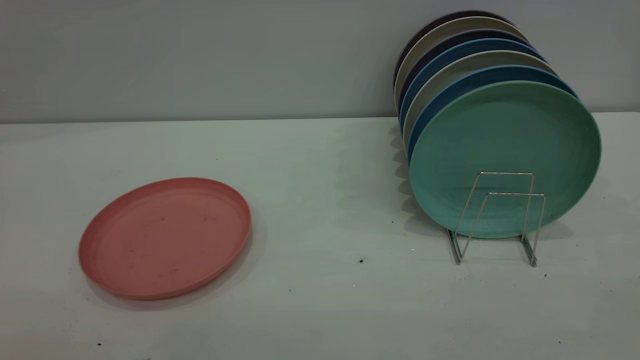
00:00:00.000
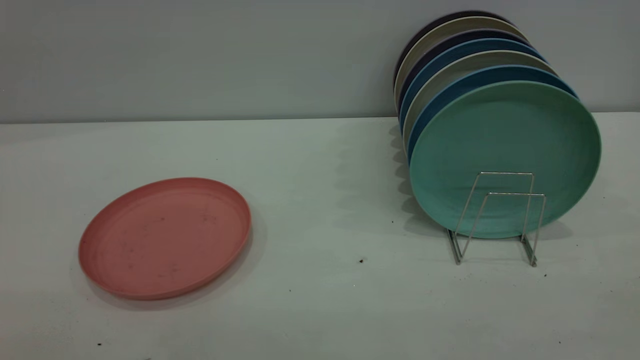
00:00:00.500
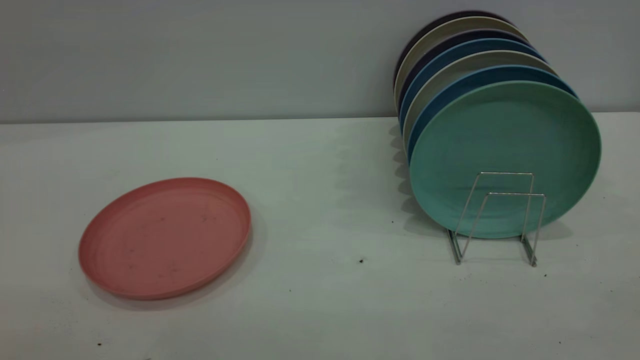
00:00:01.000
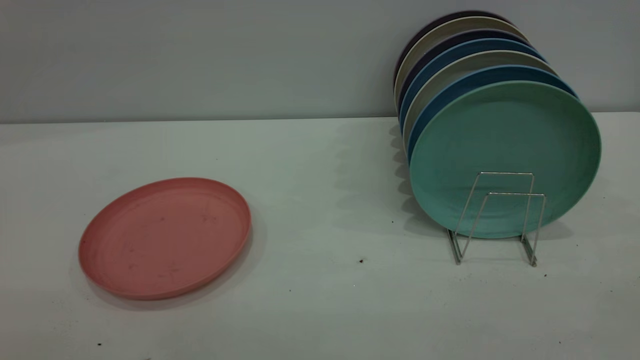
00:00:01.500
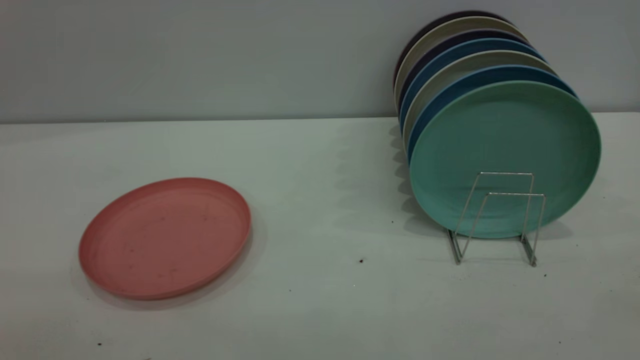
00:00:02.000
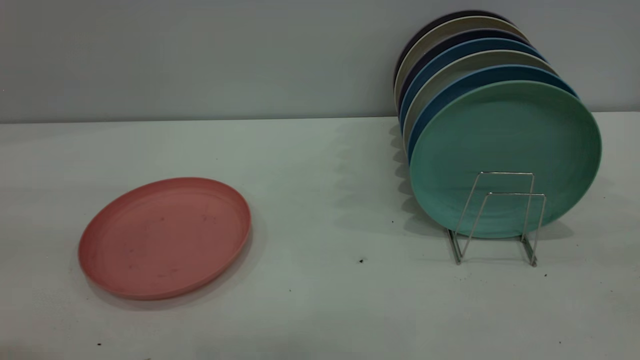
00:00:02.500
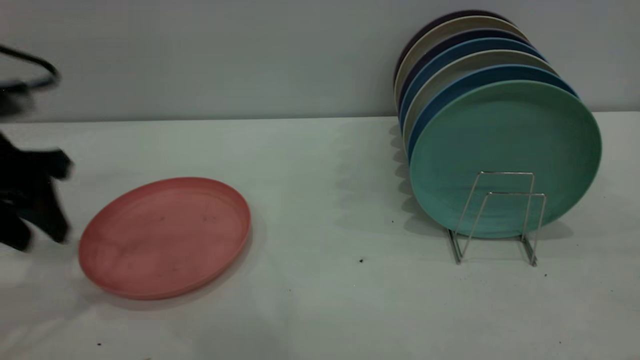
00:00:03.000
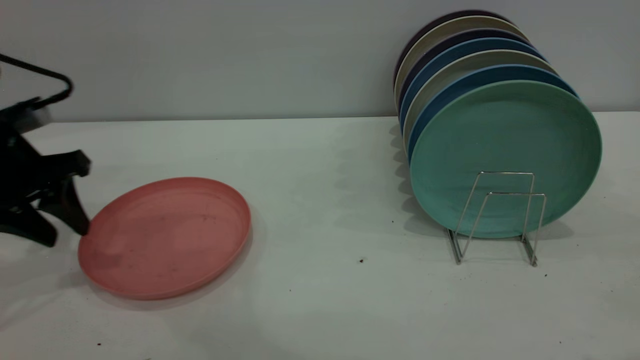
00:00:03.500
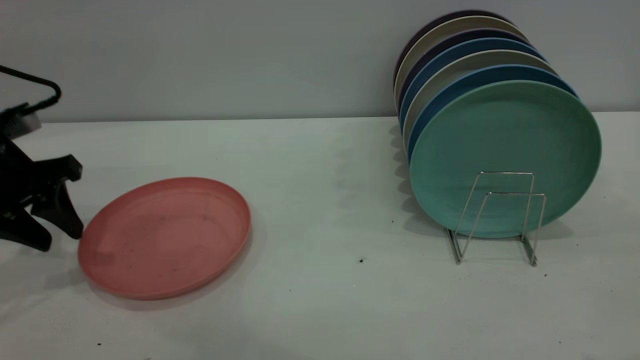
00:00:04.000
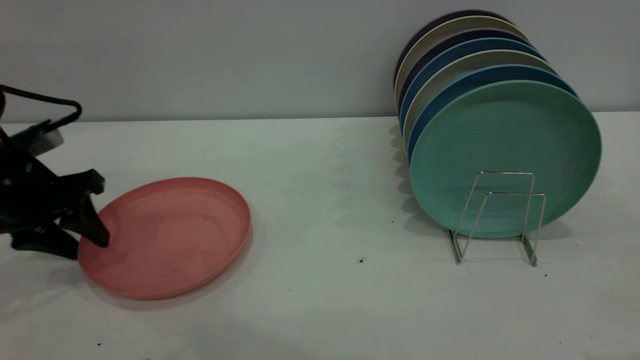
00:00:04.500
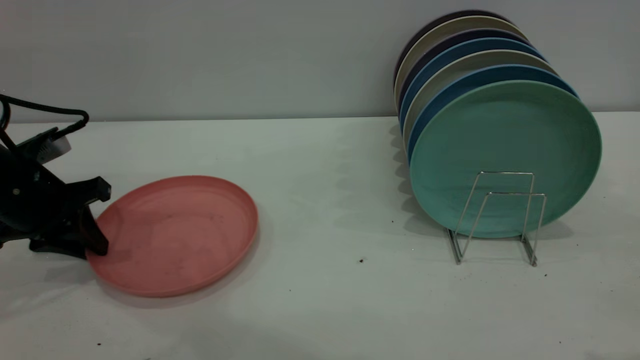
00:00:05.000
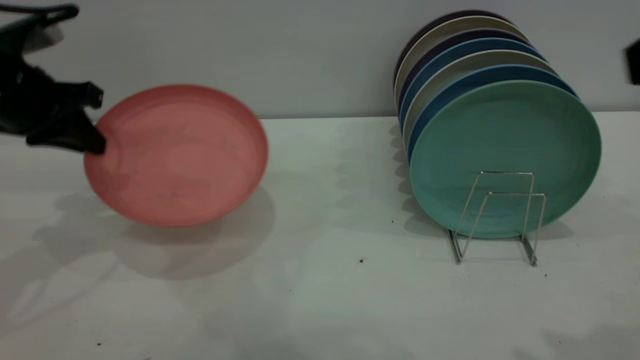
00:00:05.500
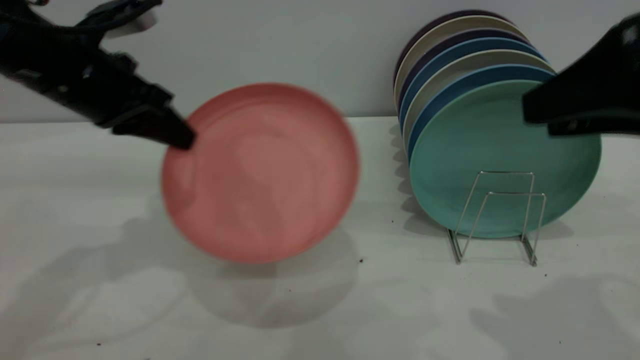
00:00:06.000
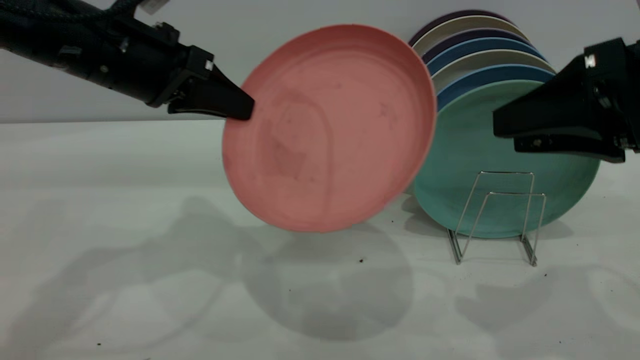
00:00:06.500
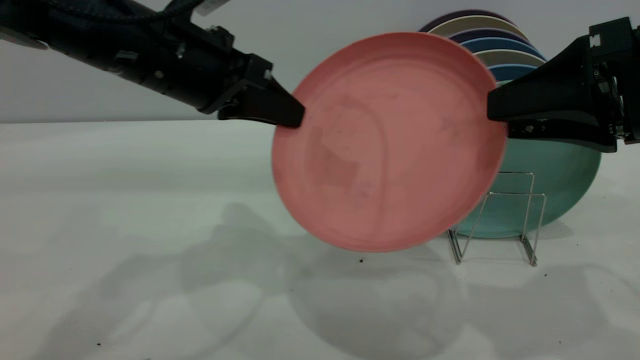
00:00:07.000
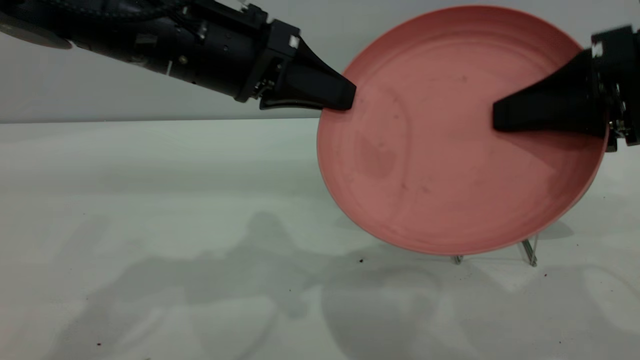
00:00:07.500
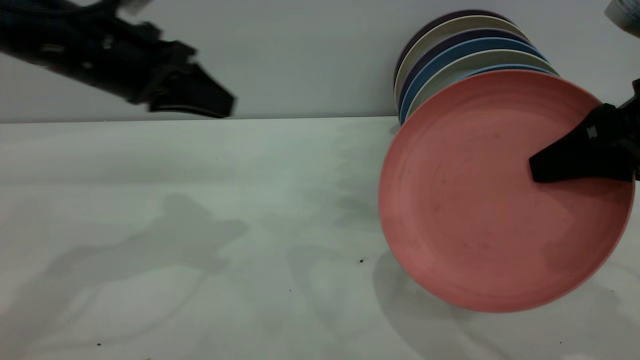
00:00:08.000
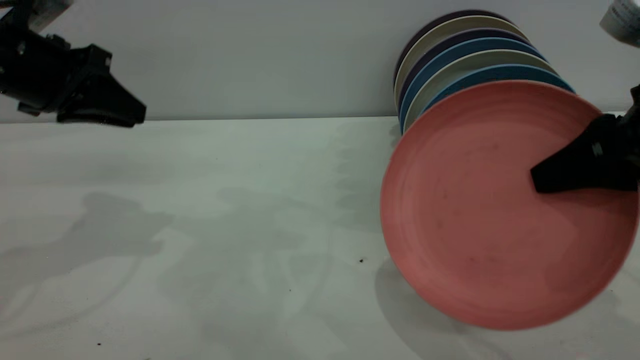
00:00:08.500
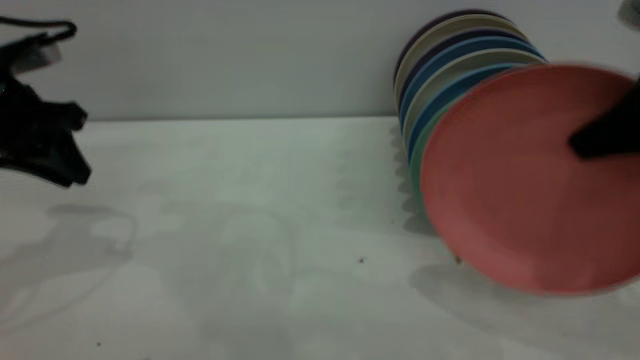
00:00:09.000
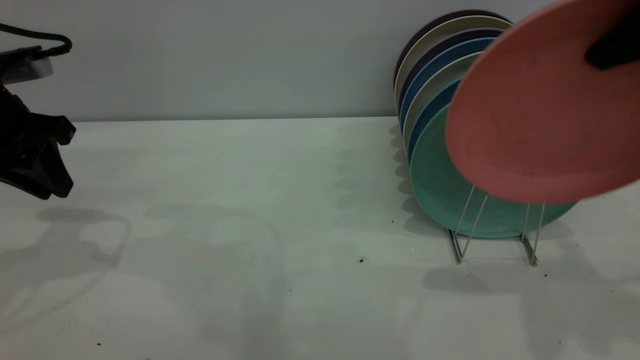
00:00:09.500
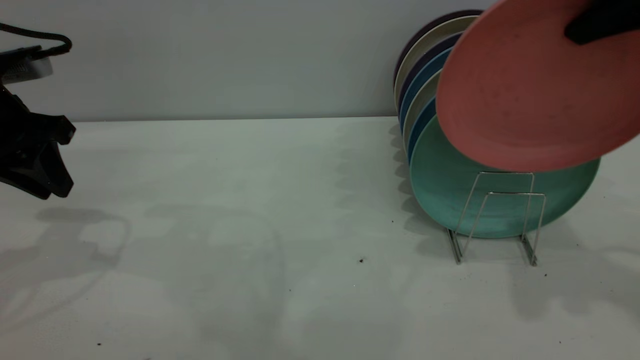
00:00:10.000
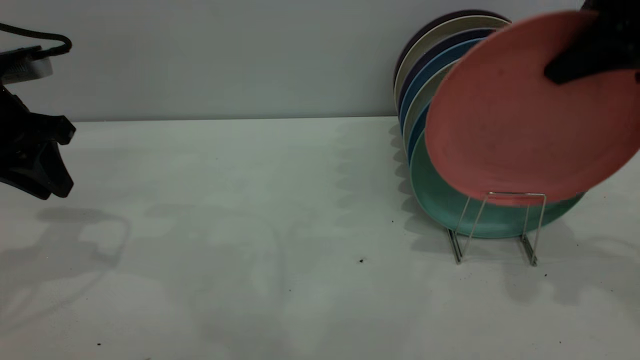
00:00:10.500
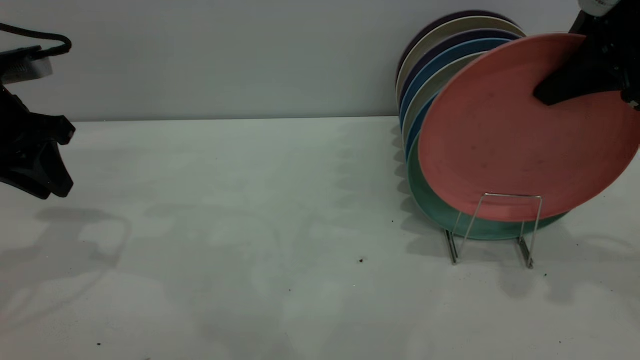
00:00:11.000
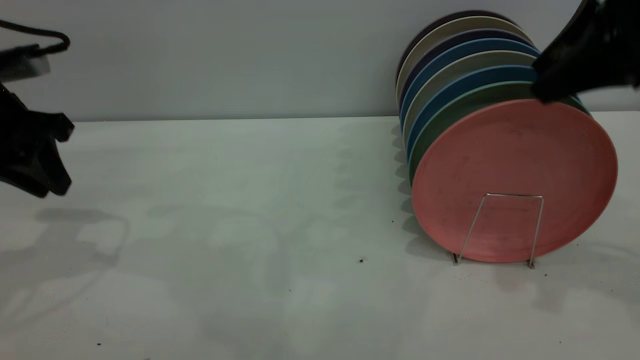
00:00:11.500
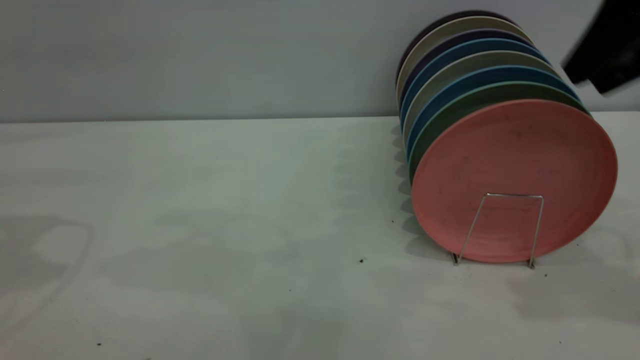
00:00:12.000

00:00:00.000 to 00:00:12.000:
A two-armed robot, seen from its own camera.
Task of the whole recording: put the plate on the plate rack.
Step, 00:00:00.000 to 00:00:05.000: Pick up the plate with the left gripper.
Step, 00:00:05.500 to 00:00:07.500: Pass the plate from the left gripper to the right gripper.
Step, 00:00:08.000 to 00:00:11.500: Place the plate on the shelf.
00:00:02.000 to 00:00:04.000: The left gripper moves forward and downward, about 40 cm.
00:00:04.000 to 00:00:06.000: The left gripper travels to the right and upward by roughly 15 cm, and closes its fingers. The right gripper heads forward and downward, covering roughly 15 cm.
00:00:06.000 to 00:00:08.000: The left gripper goes to the right and returns, roughly 10 cm each way, while the right gripper closes its fingers.
00:00:08.000 to 00:00:10.000: The left gripper goes some 10 cm to the left; the right gripper moves upward and forward, approximately 15 cm.
00:00:10.000 to 00:00:12.000: The left gripper is displaced upward by approximately 10 cm. The right gripper opens up.
